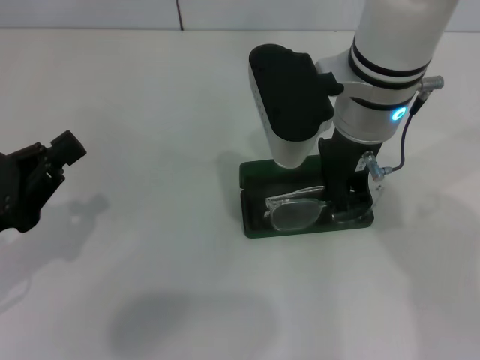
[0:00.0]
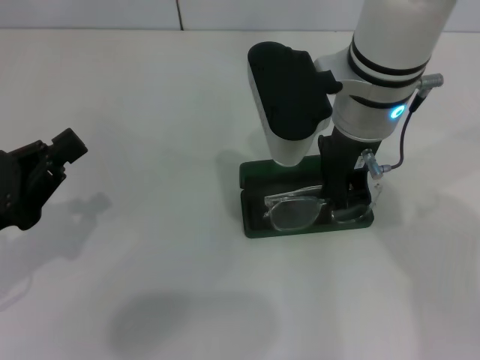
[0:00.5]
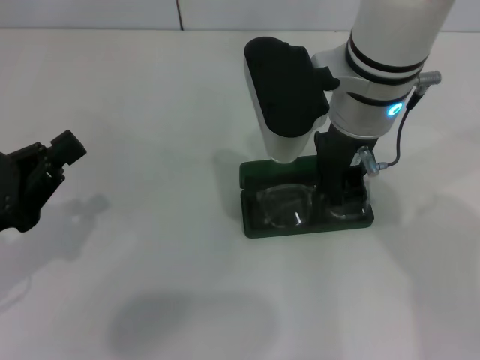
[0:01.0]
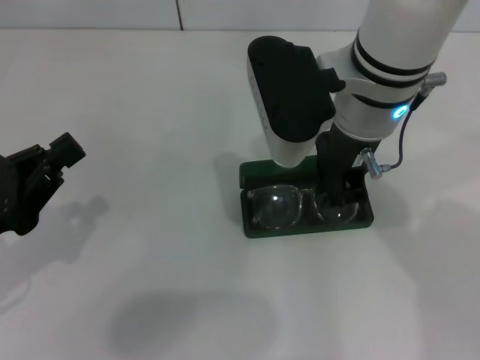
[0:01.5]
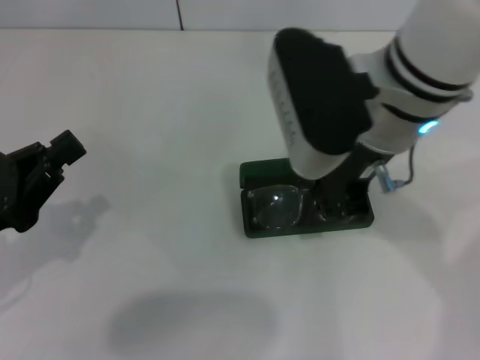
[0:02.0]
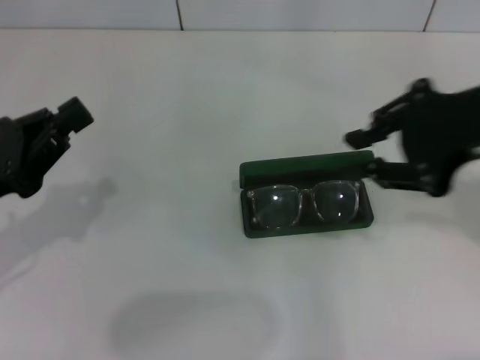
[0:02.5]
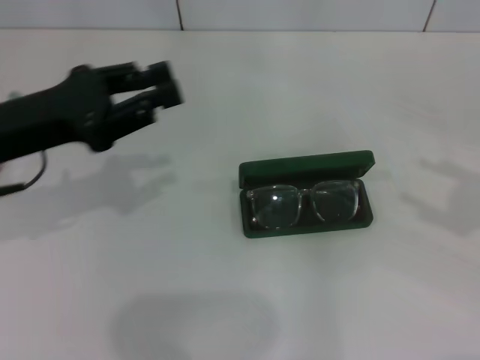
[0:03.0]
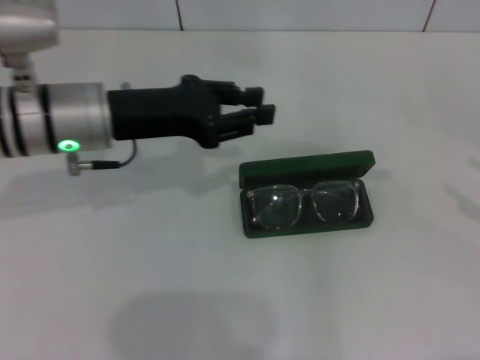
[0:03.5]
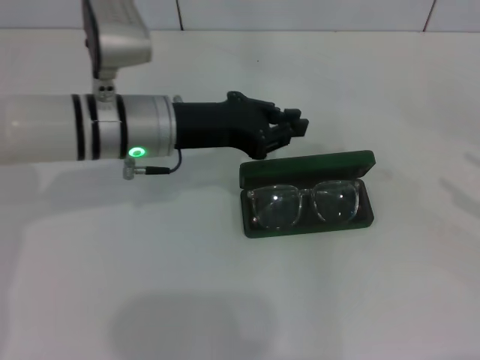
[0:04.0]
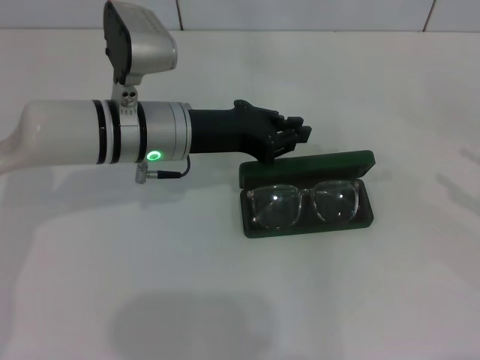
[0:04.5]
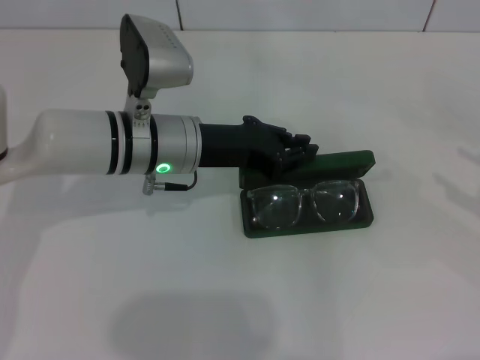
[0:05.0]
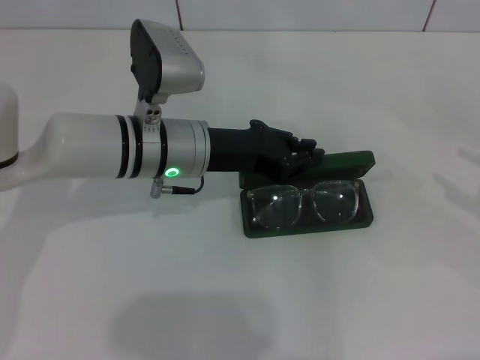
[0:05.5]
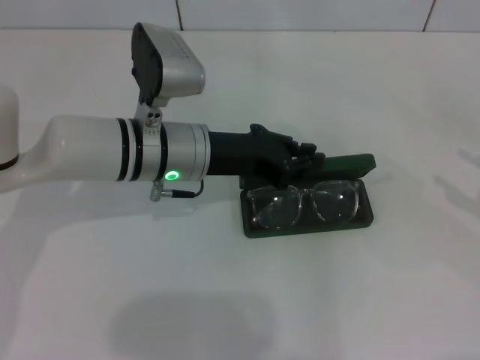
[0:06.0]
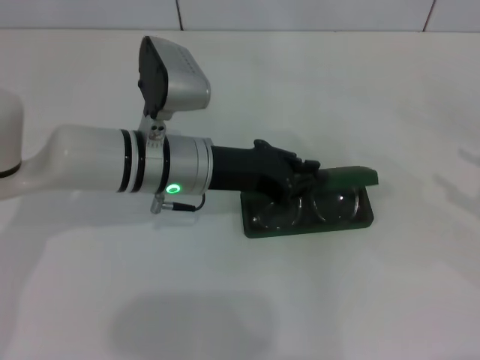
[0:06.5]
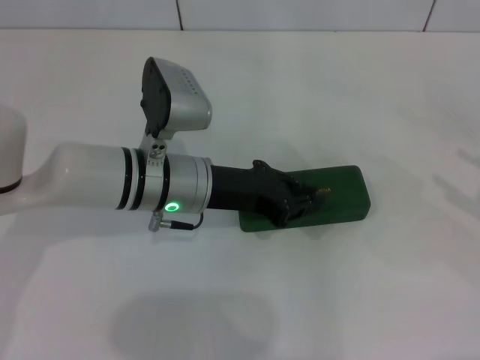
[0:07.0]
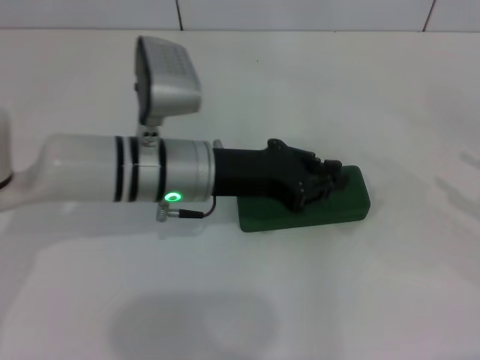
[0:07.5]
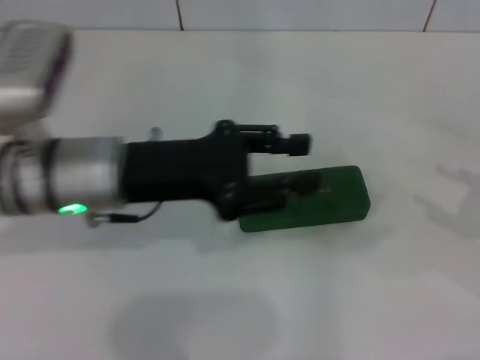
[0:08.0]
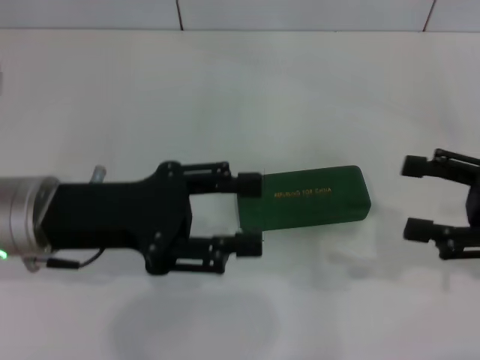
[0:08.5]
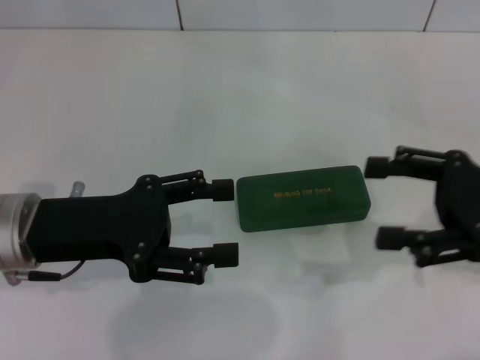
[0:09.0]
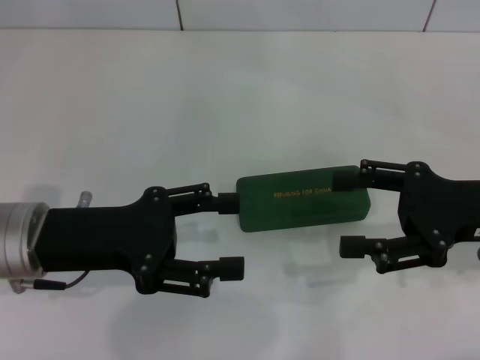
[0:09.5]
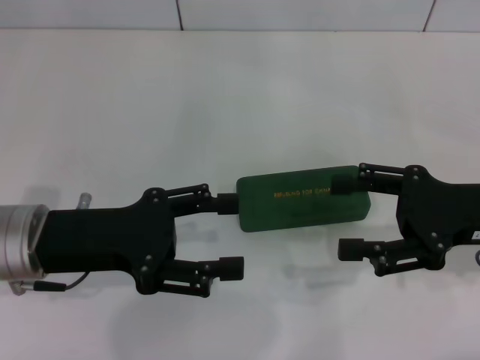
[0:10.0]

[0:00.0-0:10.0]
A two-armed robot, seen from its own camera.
Step, 0:00.0 to 0:02.0: Put the glasses into the case with your right hand.
Step, 0:02.5 to 0:07.0: Close the glasses case with your left hand.
0:00.0 to 0:02.0: The right gripper shifts by roughly 5 cm.
0:02.0 to 0:04.0: The right gripper heads to the right, covering approximately 35 cm, and opens up. Meanwhile the left gripper shifts about 25 cm to the right and forward.
0:04.0 to 0:06.0: The grippers move only a little.
0:06.0 to 0:08.0: The left gripper shifts approximately 10 cm to the left and backward.
0:08.0 to 0:10.0: The right gripper heads to the left, covering approximately 15 cm; the left gripper travels to the left by about 5 cm, and opens its fingers.
